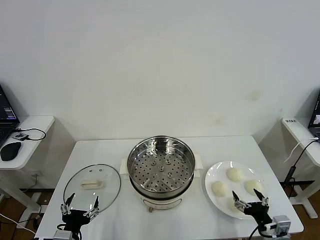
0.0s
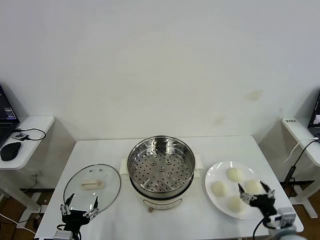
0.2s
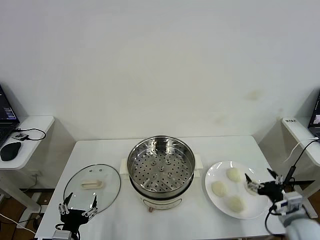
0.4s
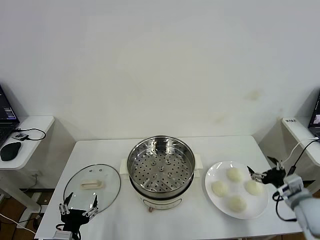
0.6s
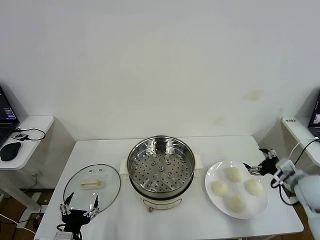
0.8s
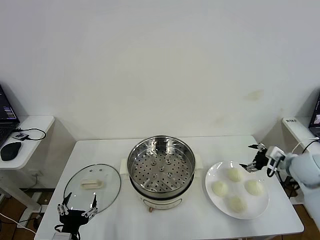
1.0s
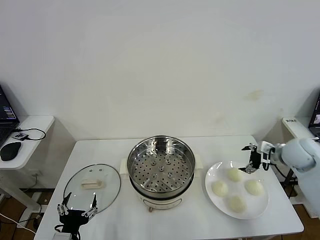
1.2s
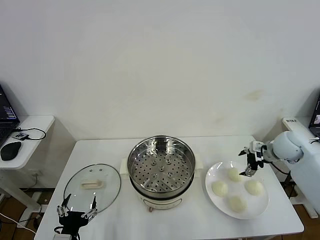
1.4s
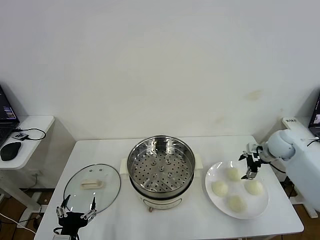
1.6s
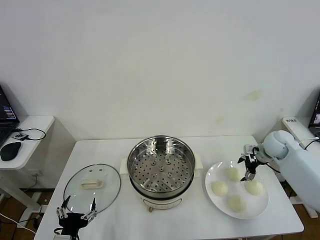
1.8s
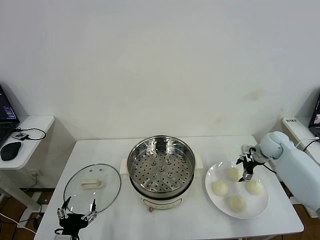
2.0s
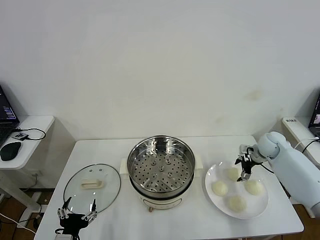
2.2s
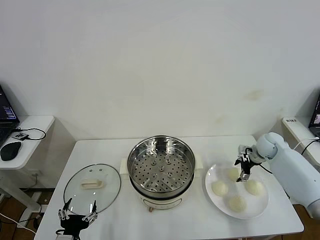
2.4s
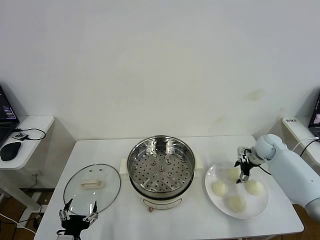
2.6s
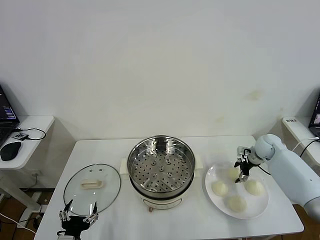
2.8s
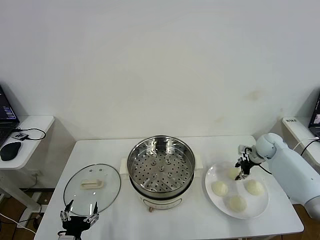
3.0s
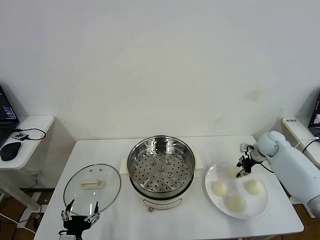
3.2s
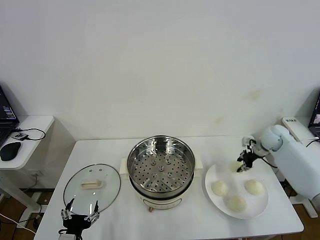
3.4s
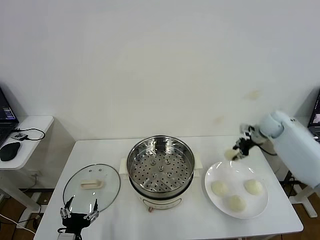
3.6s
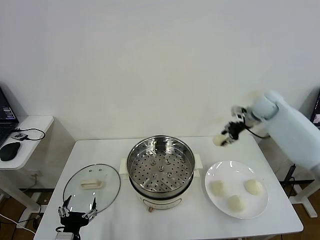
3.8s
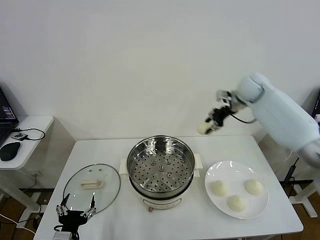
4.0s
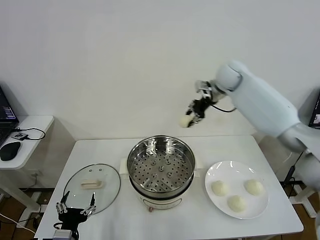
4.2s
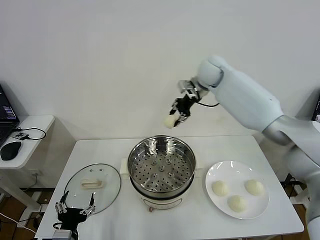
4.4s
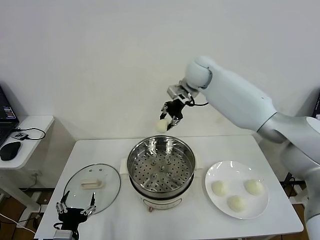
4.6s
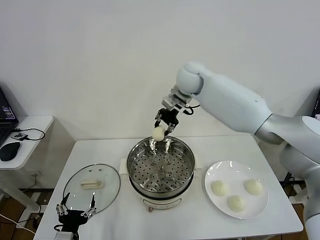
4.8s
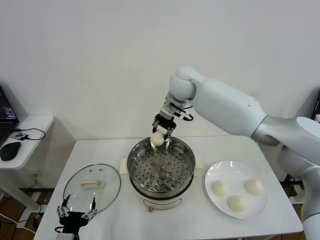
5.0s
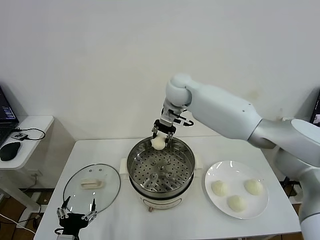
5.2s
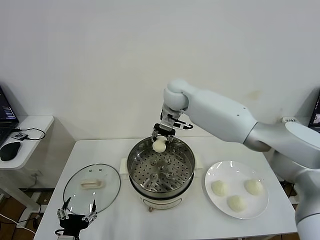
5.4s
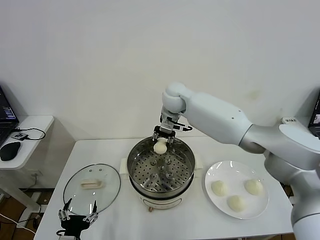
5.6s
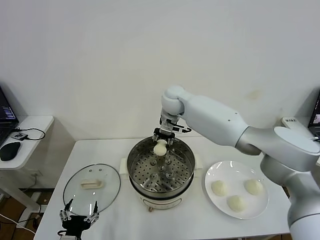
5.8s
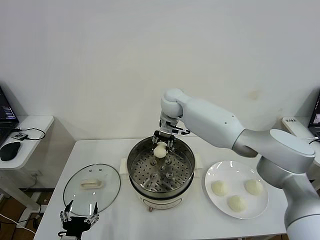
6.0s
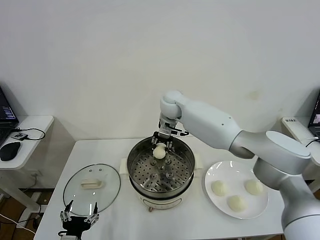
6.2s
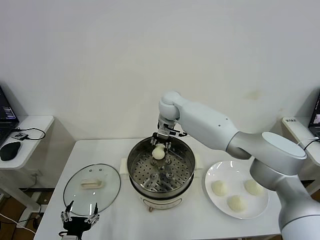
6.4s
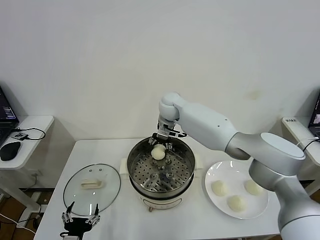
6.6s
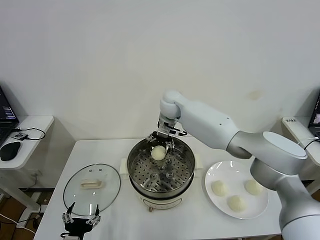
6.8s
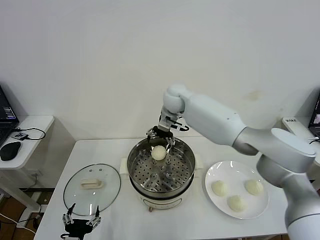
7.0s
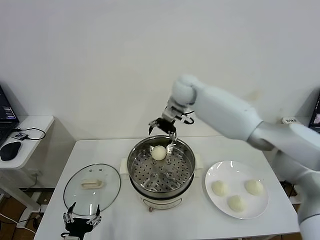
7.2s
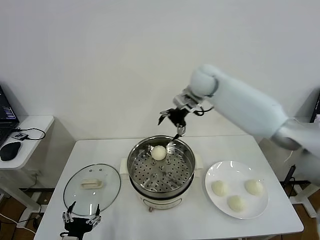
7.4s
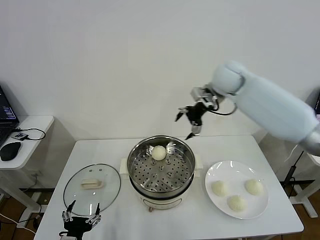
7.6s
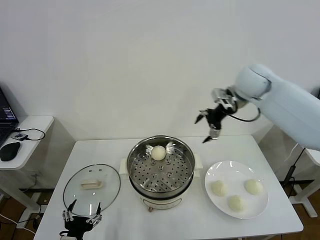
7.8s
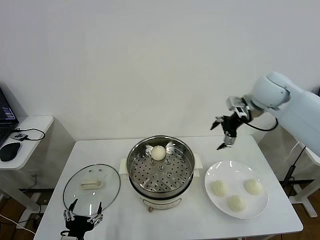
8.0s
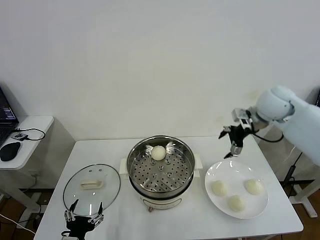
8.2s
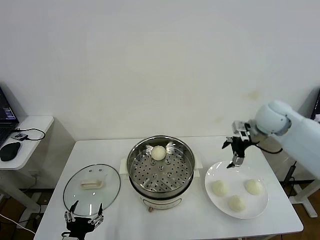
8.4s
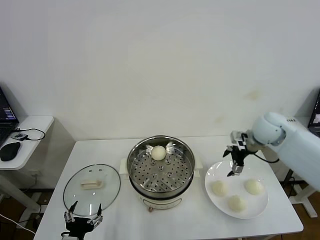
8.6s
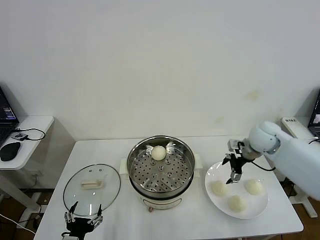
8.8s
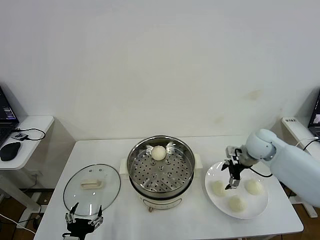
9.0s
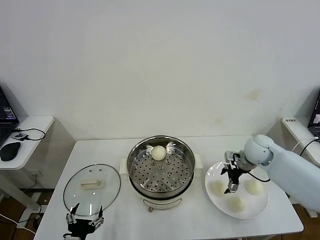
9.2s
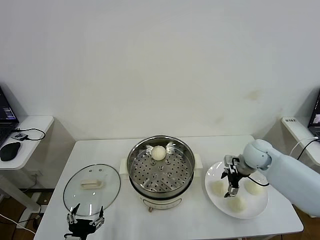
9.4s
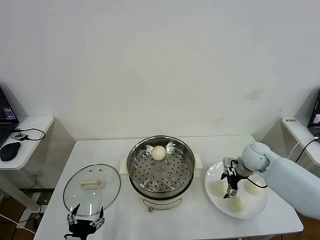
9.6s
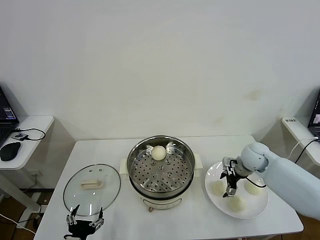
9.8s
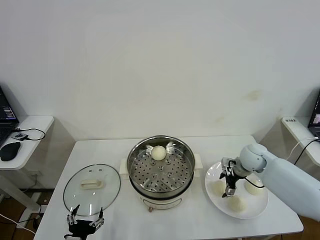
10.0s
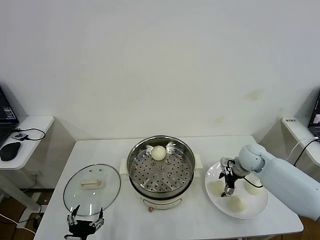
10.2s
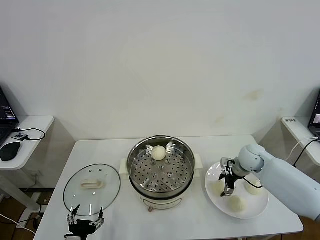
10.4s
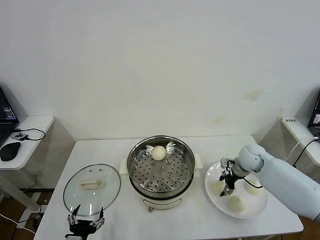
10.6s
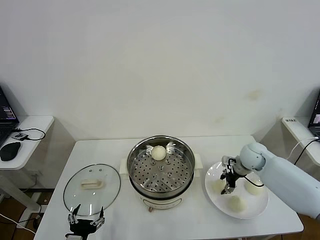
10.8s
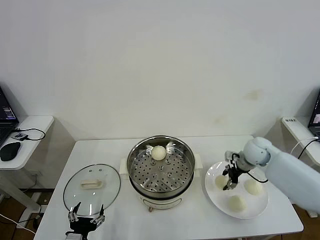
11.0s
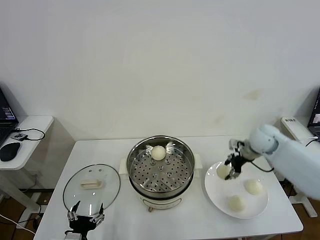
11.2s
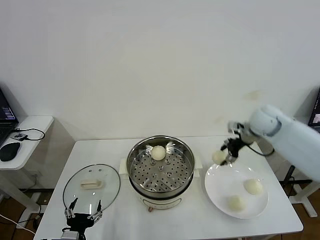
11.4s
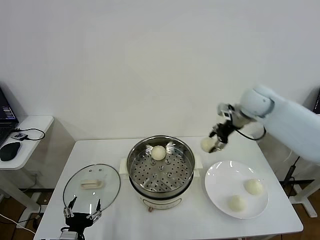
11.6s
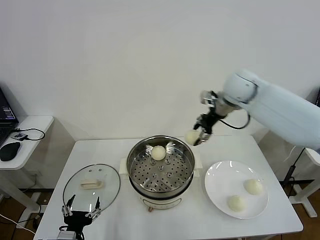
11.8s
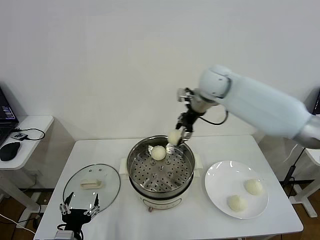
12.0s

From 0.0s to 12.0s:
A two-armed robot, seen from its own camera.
Step, from 0.0s to 3.0s: Grasp the baozi in the plate with right gripper.
Step, from 3.2s to 6.6s: Place the baozi on the steamer with right gripper.
Step, from 6.8s to 10.6s: Grasp the baozi in the plate with right gripper.
From 1.6s to 3.0s: The right gripper moves roughly 5 cm, and closes up.
From 3.0s to 4.4s: The right gripper heads to the left and upward, covering roughly 40 cm.
From 4.4s to 6.0s: The right gripper is displaced downward and to the left by some 15 cm.
From 6.0s to 7.6s: The right gripper moves to the right and upward, approximately 25 cm, and opens its fingers.
From 7.6s to 9.0s: The right gripper travels downward, to the right and backward by roughly 25 cm.
From 9.0s to 10.4s: The right gripper is displaced downward by roughly 5 cm, and closes its fingers.
From 10.4s to 12.0s: The right gripper heads upward and to the left, covering about 35 cm.

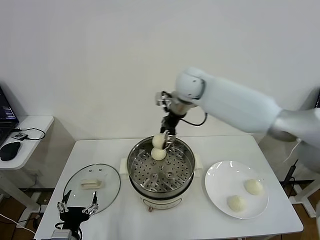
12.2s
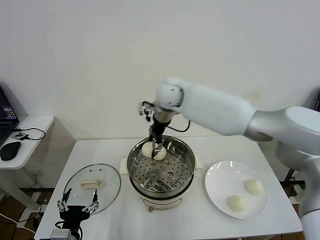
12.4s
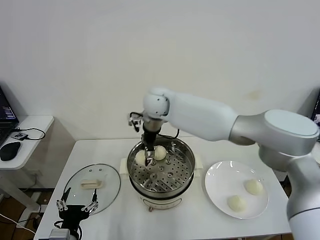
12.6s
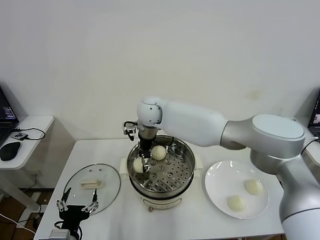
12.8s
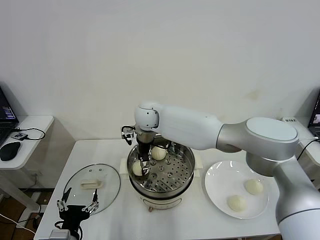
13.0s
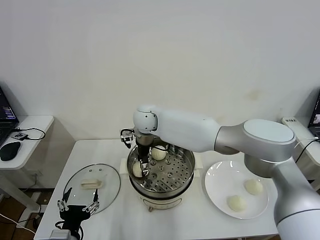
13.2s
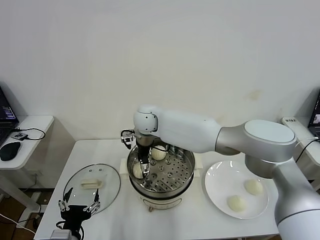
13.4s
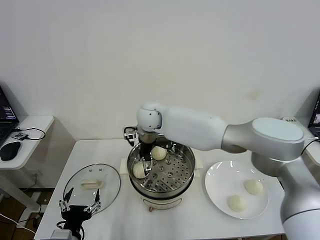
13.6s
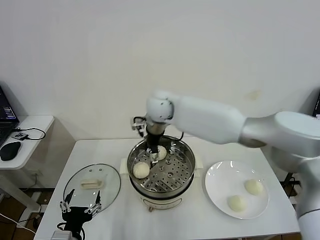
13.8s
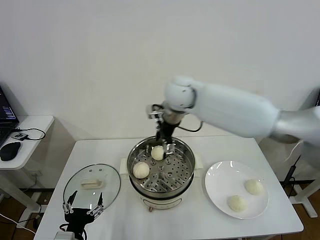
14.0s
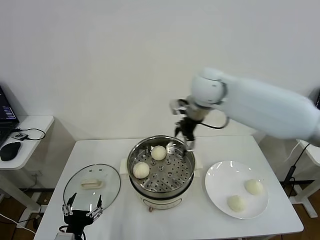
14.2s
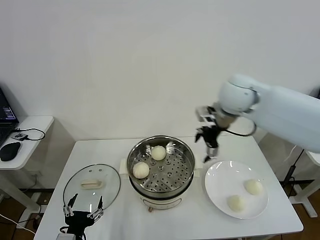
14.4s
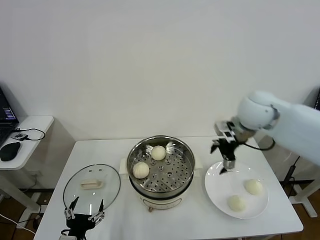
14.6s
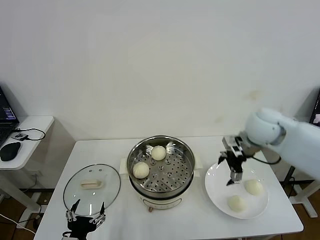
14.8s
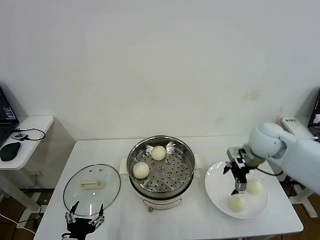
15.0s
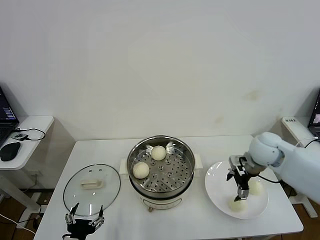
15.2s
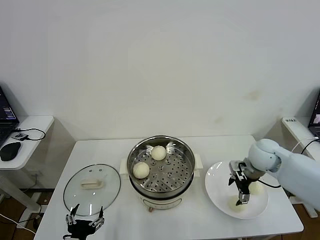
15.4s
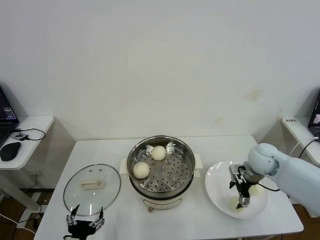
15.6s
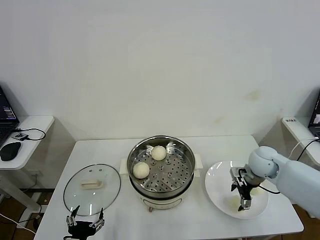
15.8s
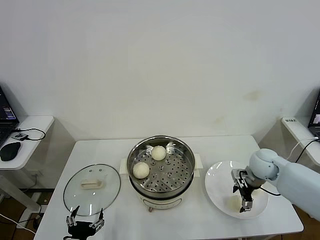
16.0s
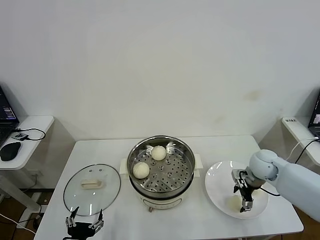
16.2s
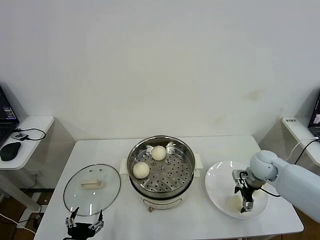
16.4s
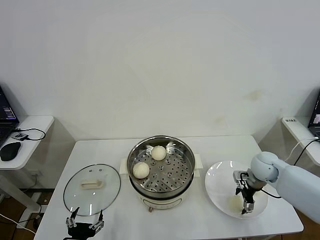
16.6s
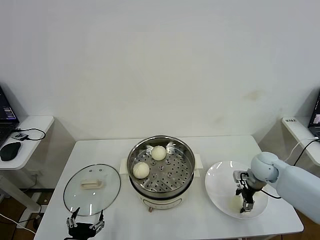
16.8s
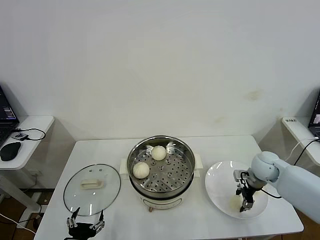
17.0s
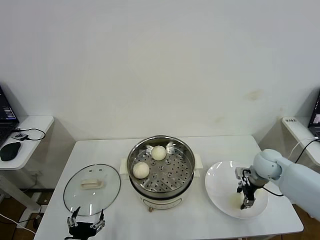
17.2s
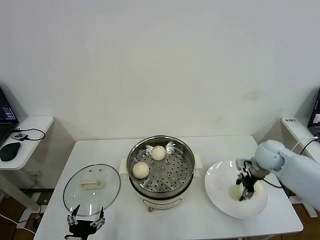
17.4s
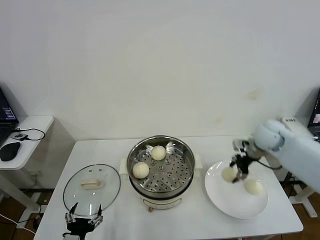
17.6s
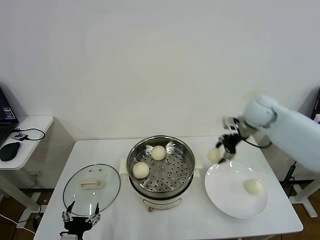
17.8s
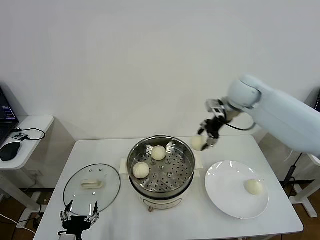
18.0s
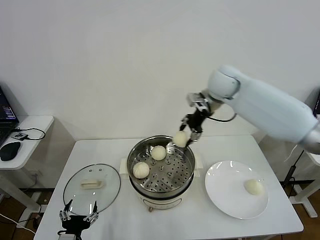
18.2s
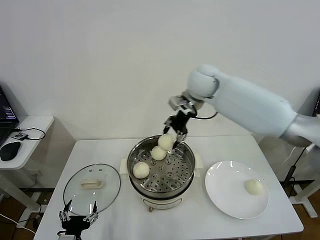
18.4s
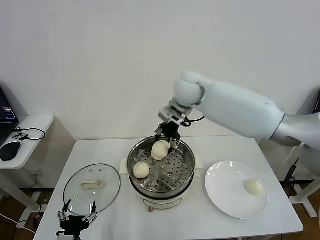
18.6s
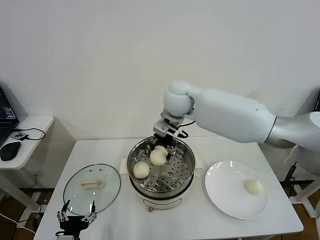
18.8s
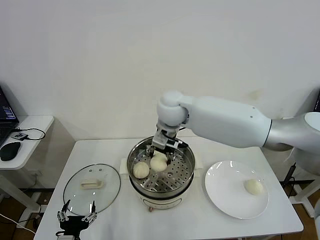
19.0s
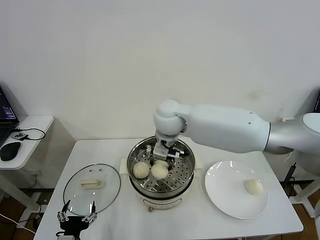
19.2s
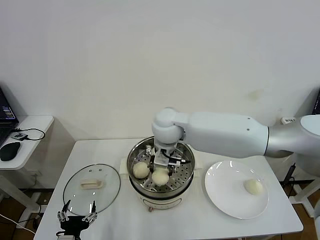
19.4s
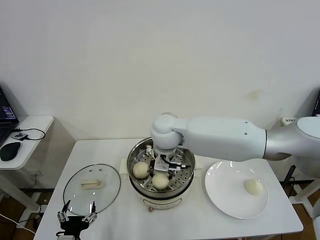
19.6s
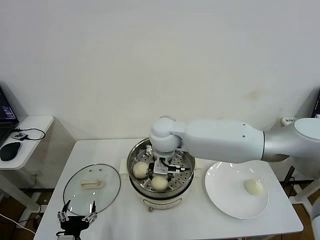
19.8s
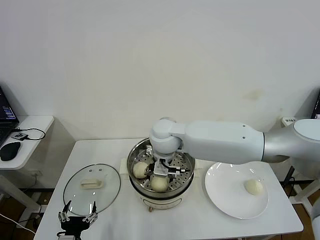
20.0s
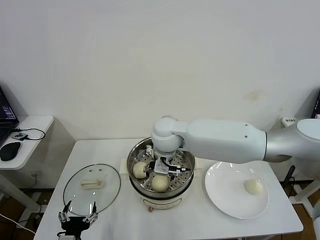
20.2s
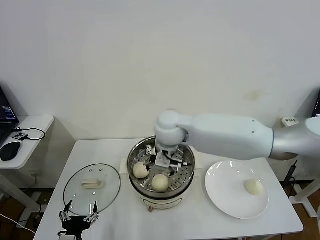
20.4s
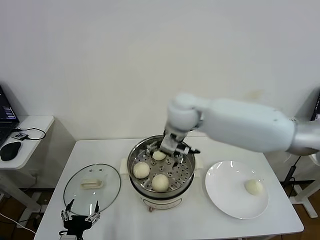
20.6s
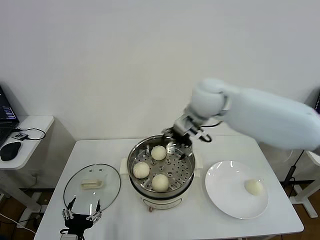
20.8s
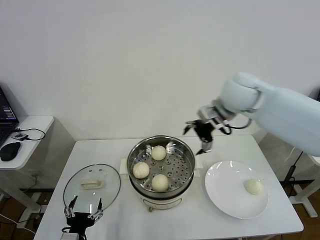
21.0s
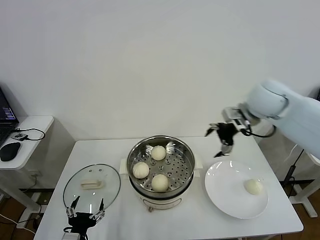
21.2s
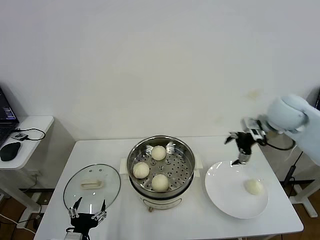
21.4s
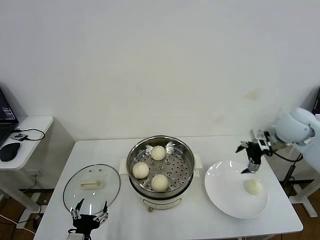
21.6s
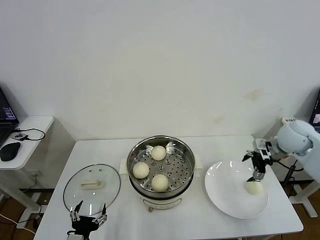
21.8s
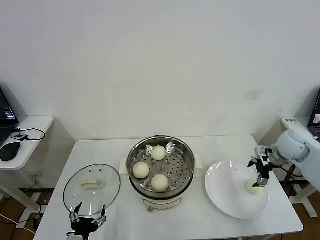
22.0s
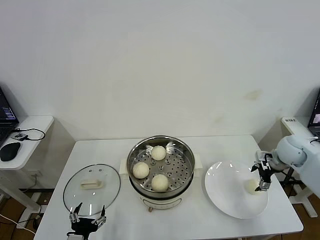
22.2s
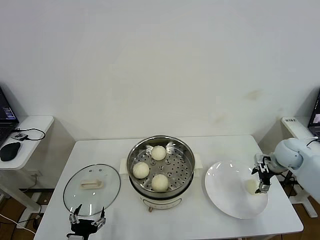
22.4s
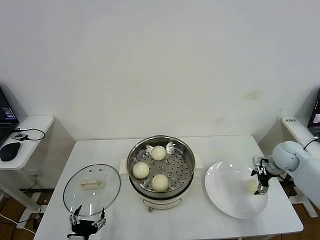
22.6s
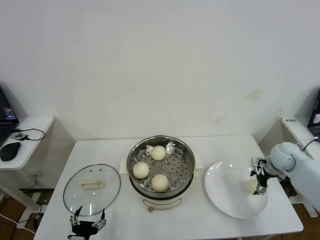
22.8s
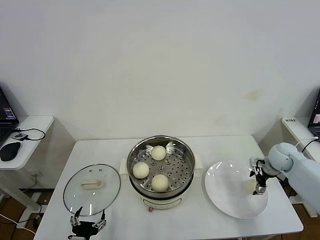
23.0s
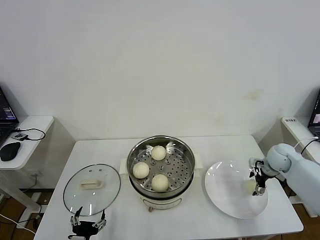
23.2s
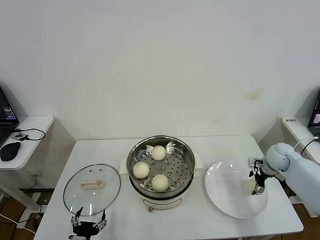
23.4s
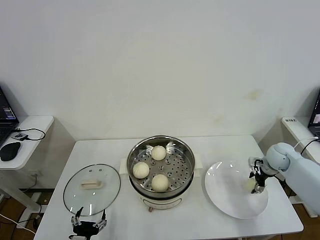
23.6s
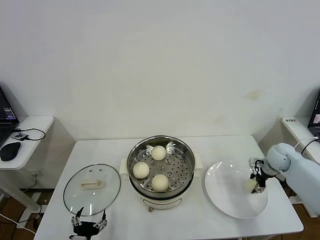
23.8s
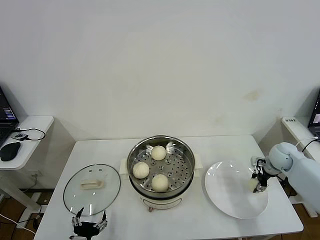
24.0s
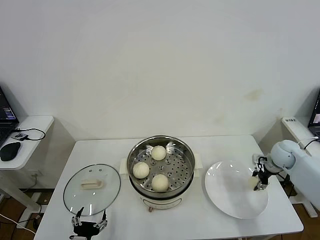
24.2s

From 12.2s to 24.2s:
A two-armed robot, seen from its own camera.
Step, from 13.4s to 17.0s: Grasp the baozi in the plate with right gripper.
Step, from 17.2s to 20.0s: Place the baozi on the steamer with right gripper.
Step, from 20.2s to 24.0s: Grasp the baozi in the plate with right gripper.
From 12.2s to 13.8s: The right gripper travels to the left and back again, about 10 cm each way, and opens its fingers.
From 13.8s to 15.2s: The right gripper heads to the right and downward, covering approximately 35 cm.
From 15.2s to 16.6s: The right gripper shifts some 10 cm downward.
From 16.6s to 18.2s: The right gripper shifts about 35 cm upward, to the left and forward, and closes up.
From 18.2s to 19.8s: The right gripper shifts about 20 cm to the left, backward and downward.
From 19.8s to 21.2s: The right gripper shifts about 30 cm to the right, and opens its fingers.
From 21.2s to 22.6s: The right gripper travels downward and to the right by approximately 25 cm.
From 22.6s to 24.2s: The right gripper closes up.
